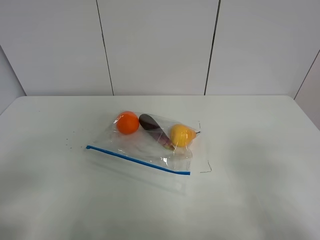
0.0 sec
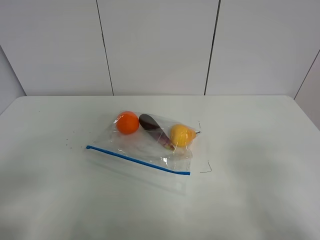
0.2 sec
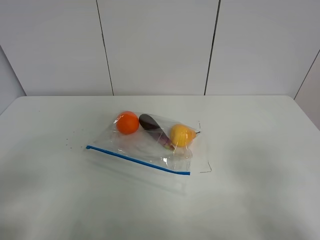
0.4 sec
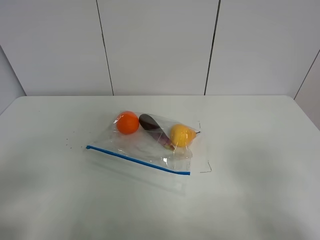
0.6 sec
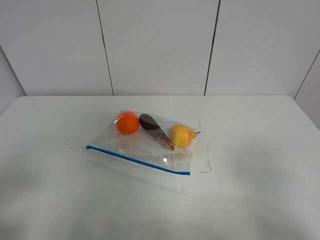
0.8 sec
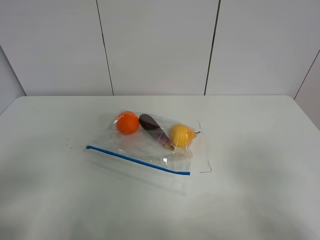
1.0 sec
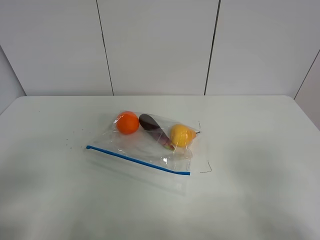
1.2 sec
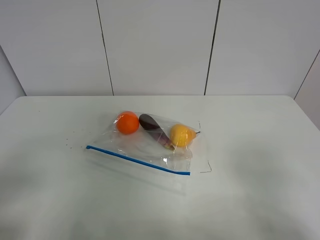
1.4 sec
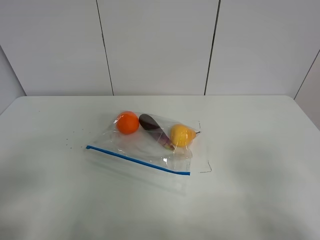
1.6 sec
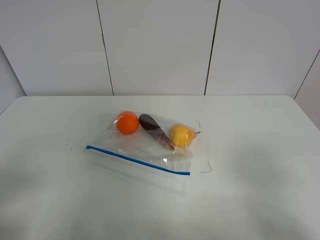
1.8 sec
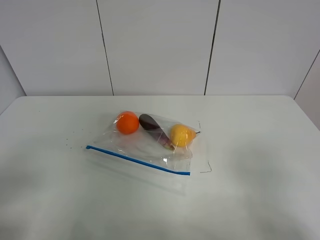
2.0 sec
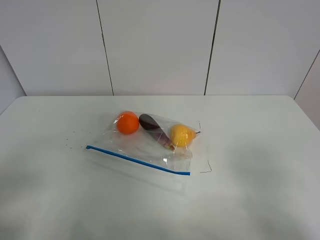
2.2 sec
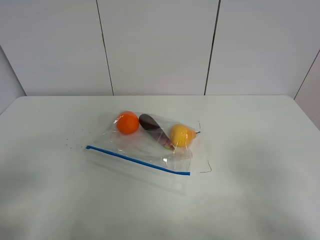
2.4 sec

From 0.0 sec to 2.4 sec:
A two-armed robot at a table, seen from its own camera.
From 1.2 sec to 2.4 sec: Both grippers stay about where they are.
